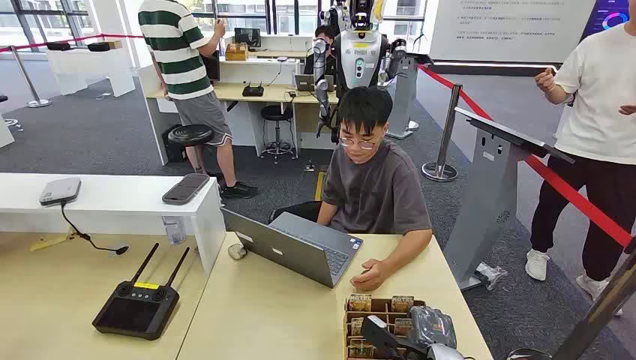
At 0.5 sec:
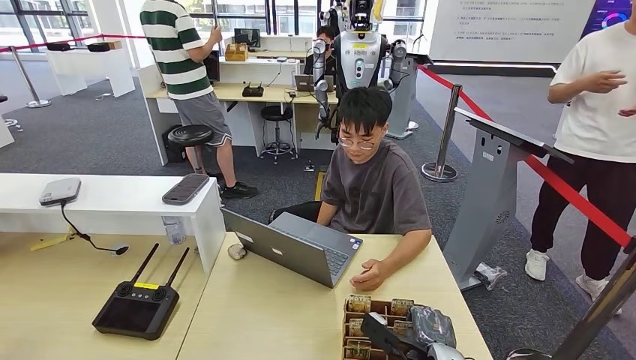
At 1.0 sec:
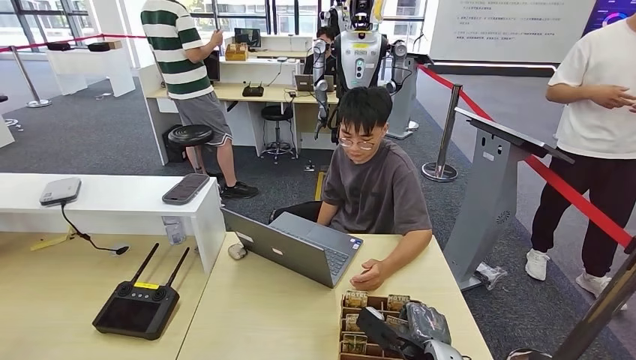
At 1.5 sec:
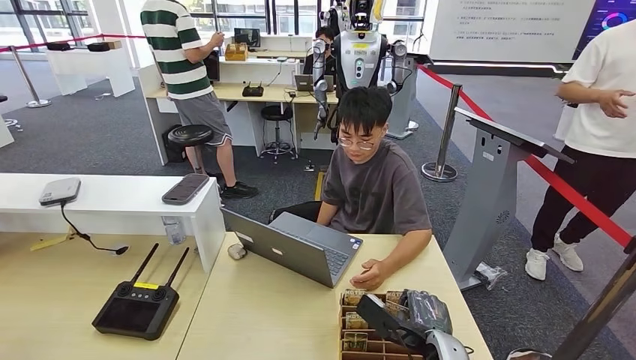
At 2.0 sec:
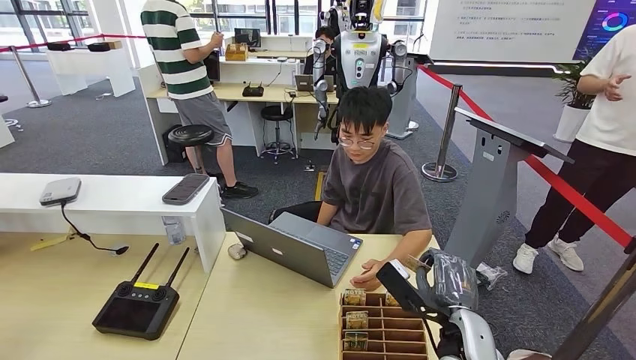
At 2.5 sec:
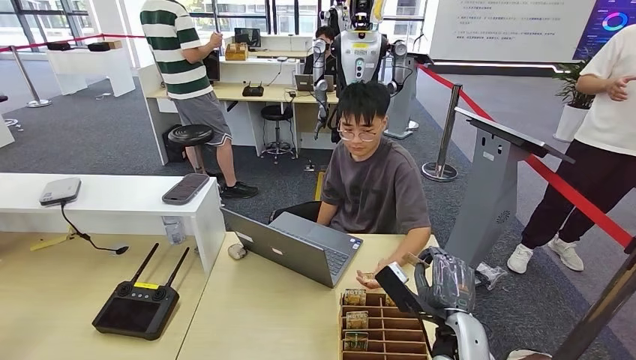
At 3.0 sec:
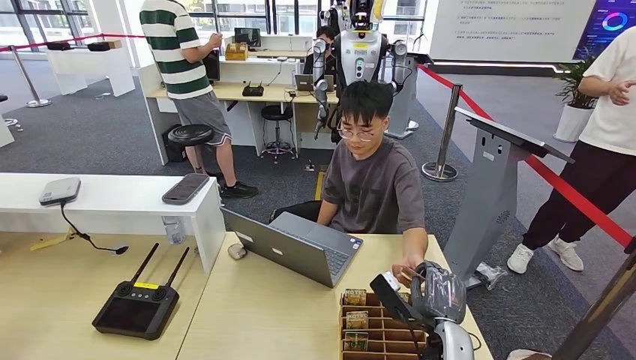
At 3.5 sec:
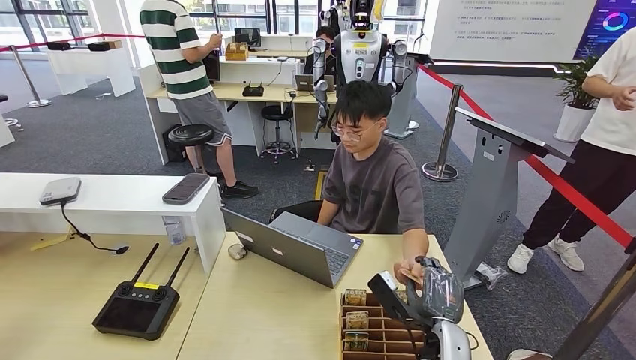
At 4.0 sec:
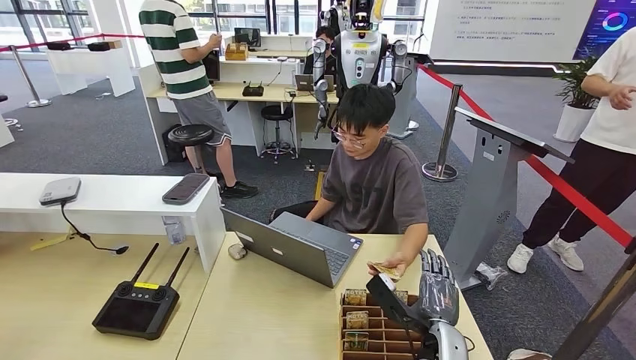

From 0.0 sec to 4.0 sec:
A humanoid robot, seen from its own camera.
Task of the whole recording: Pick up the card and hand it over to the target person.
Step, from 0.0 sec to 1.0 sec: Pick up the key card from the card box.
Step, from 3.0 sec to 4.0 sec: Hand the key card to the target.
From 2.0 sec to 4.0 sec: The right hand travels downward by approximately 5 cm.

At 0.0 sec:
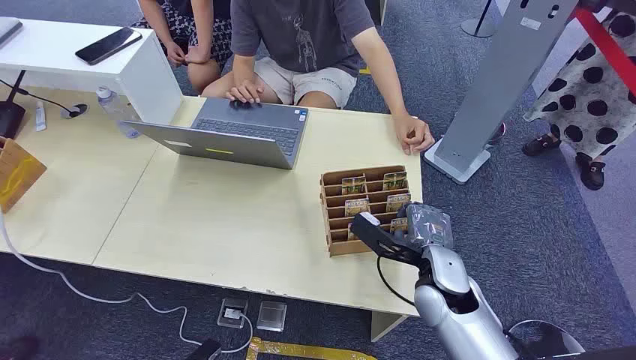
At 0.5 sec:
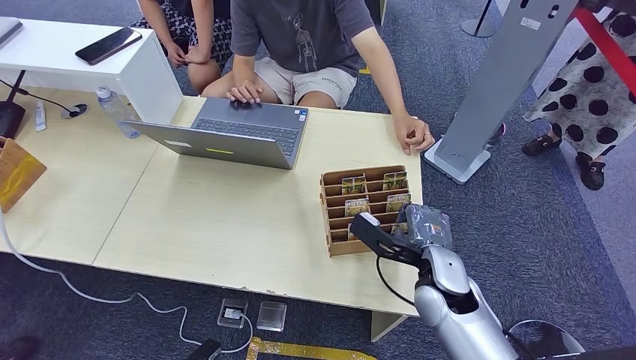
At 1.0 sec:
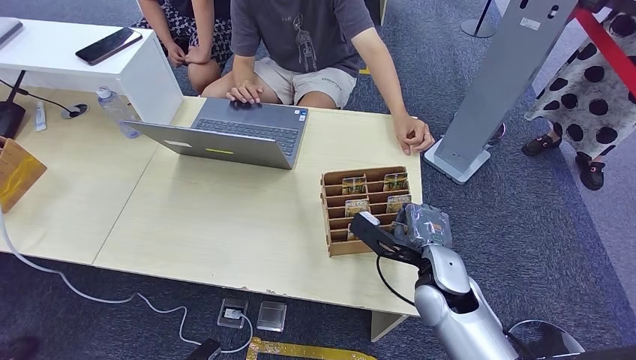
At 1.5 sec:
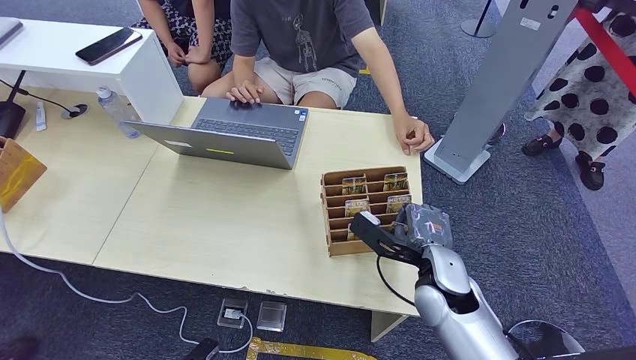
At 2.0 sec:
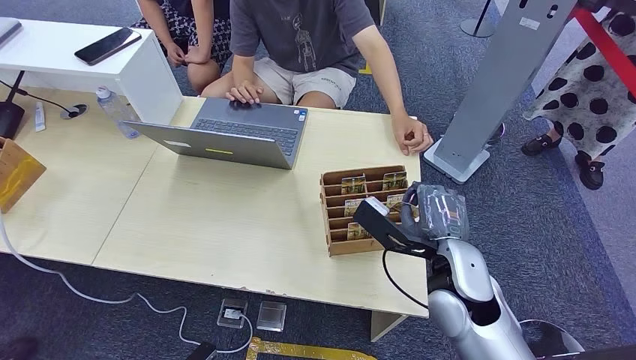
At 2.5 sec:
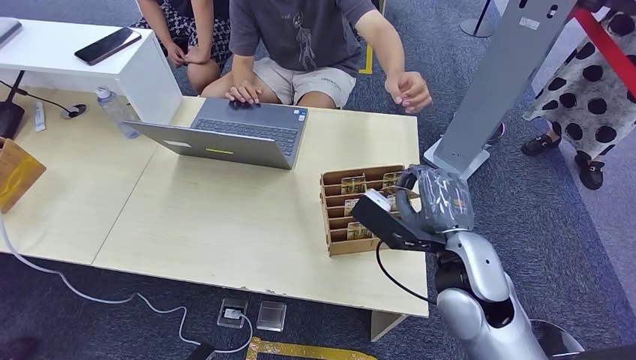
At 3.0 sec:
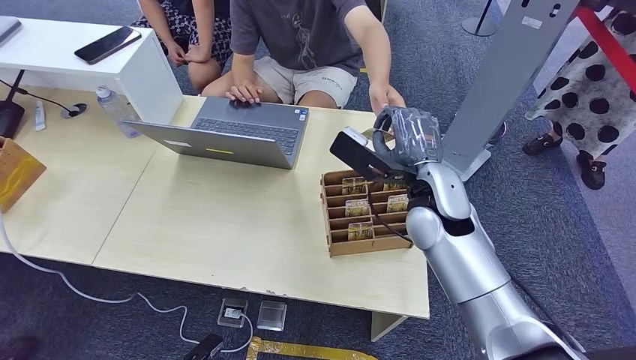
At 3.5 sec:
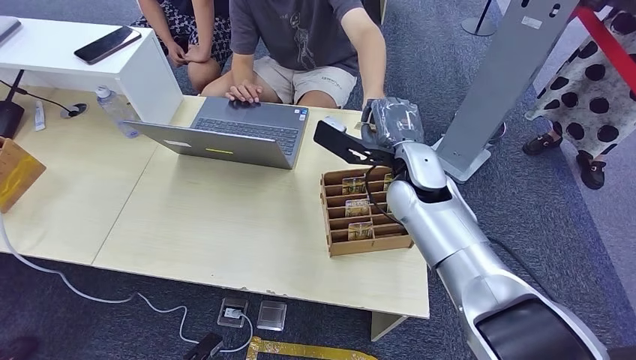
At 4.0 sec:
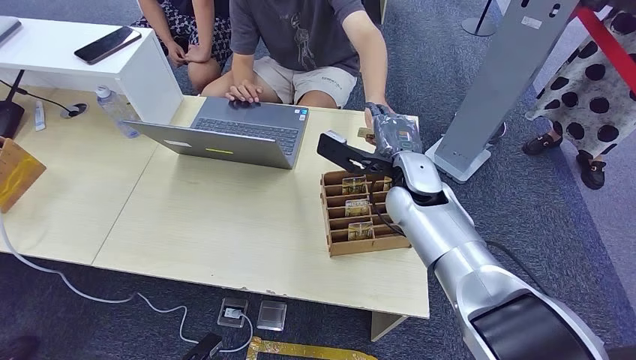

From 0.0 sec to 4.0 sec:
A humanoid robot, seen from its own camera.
Task of the whole recording: Pick up the card and hand it over to the target person.
Step, from 0.0 sec to 2.0 sec: Pick up the key card from the card box.
Step, from 3.0 sec to 4.0 sec: Hand the key card to the target.
From 2.0 sec to 4.0 sec: The right hand travels forward by about 20 cm.
